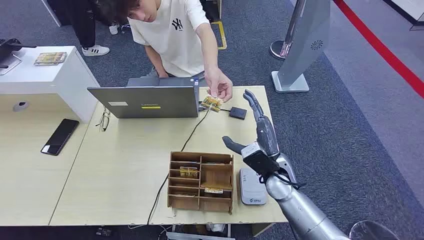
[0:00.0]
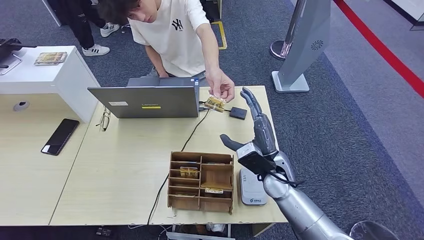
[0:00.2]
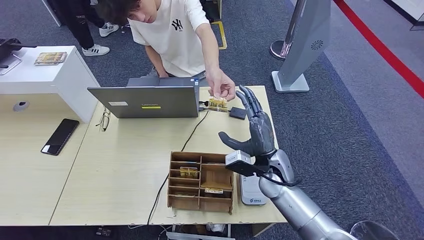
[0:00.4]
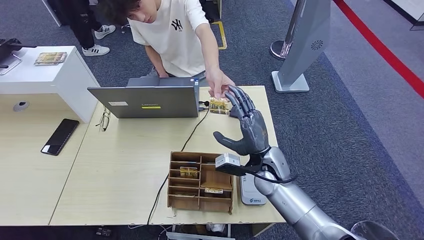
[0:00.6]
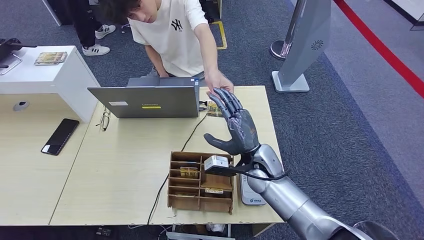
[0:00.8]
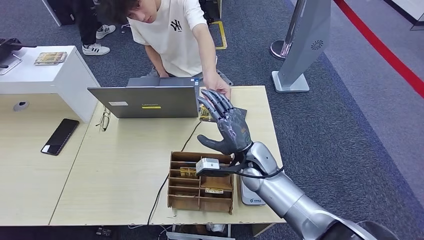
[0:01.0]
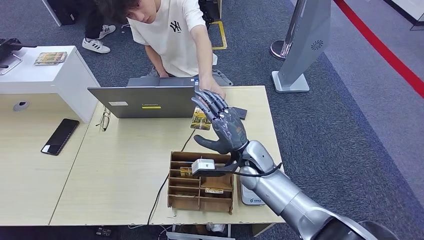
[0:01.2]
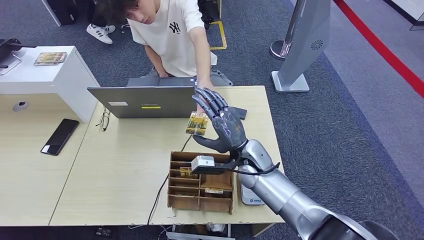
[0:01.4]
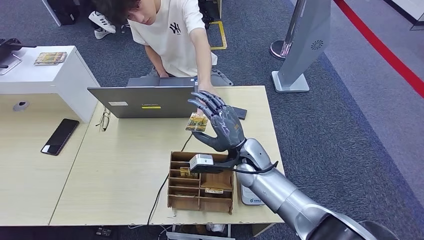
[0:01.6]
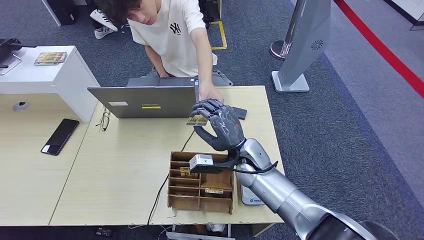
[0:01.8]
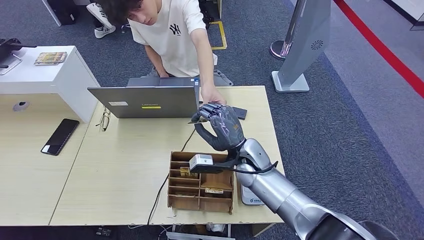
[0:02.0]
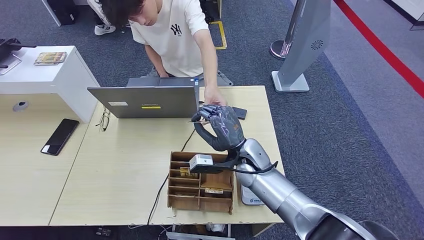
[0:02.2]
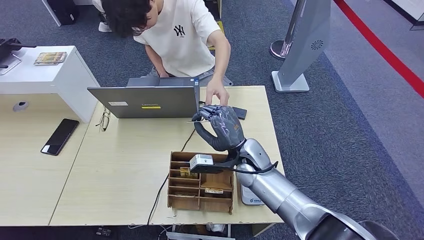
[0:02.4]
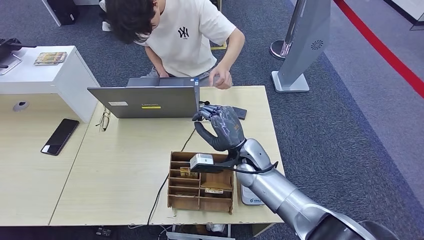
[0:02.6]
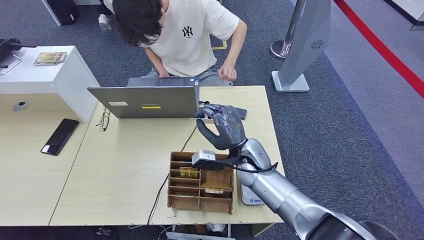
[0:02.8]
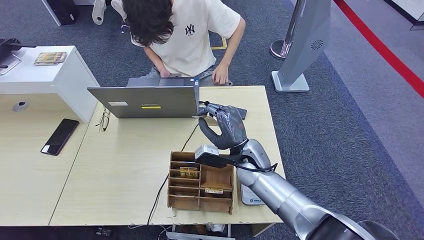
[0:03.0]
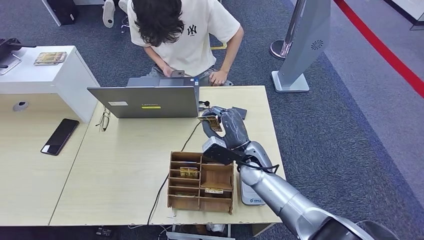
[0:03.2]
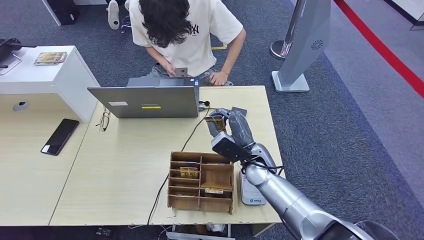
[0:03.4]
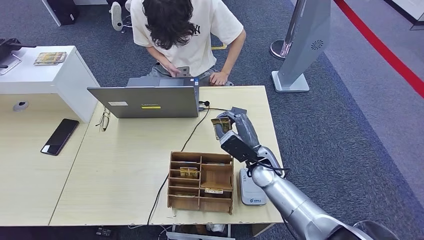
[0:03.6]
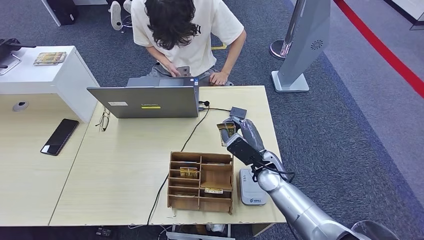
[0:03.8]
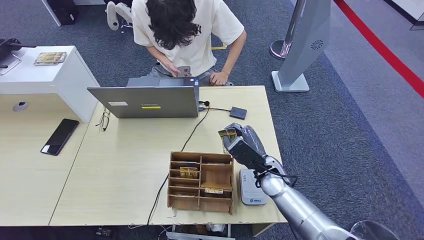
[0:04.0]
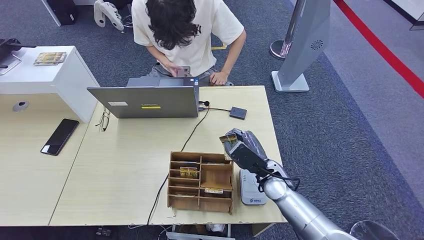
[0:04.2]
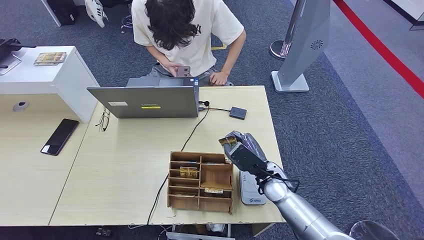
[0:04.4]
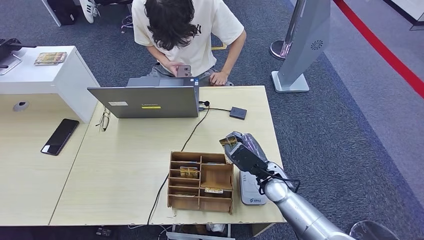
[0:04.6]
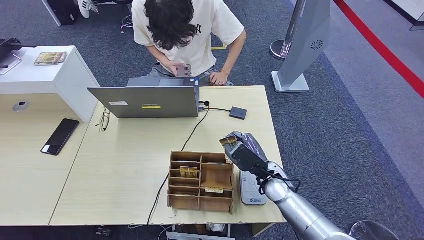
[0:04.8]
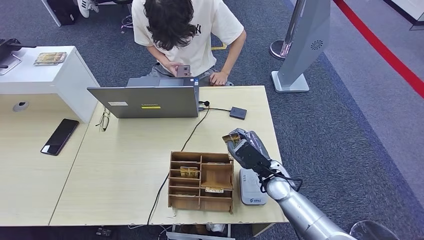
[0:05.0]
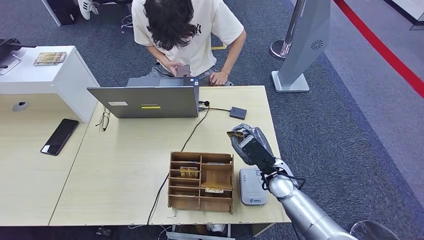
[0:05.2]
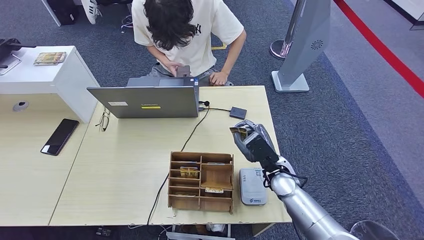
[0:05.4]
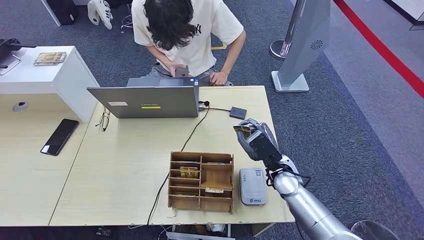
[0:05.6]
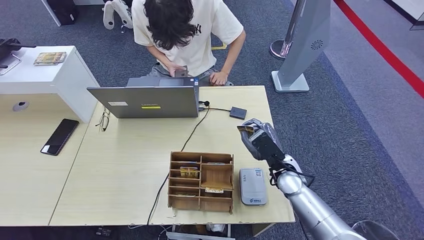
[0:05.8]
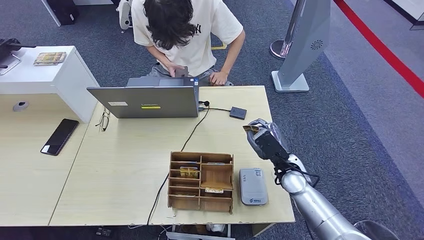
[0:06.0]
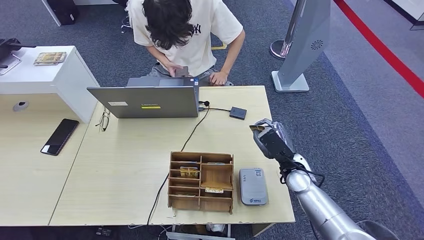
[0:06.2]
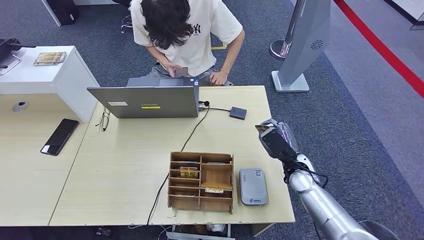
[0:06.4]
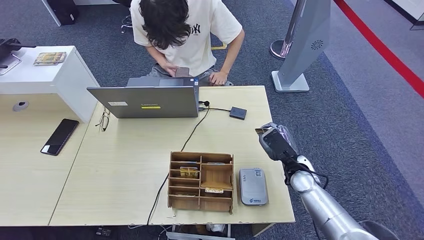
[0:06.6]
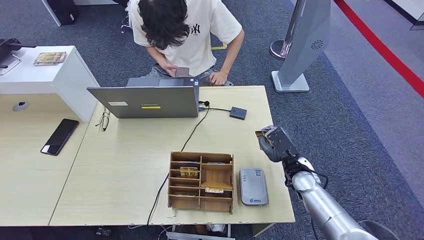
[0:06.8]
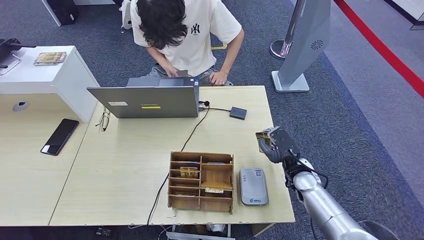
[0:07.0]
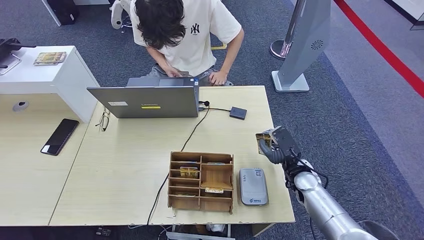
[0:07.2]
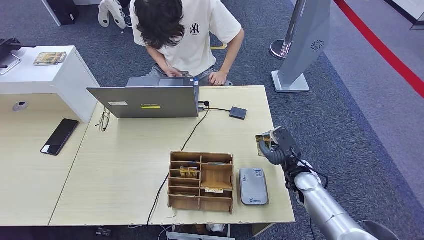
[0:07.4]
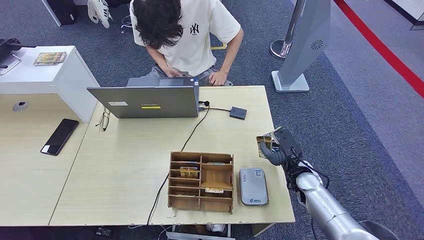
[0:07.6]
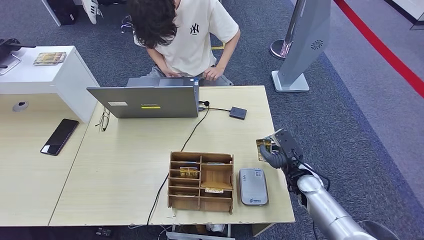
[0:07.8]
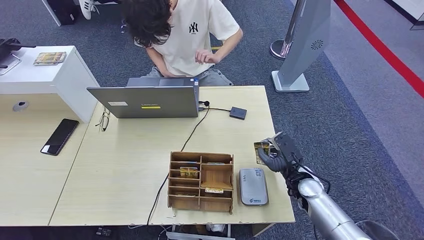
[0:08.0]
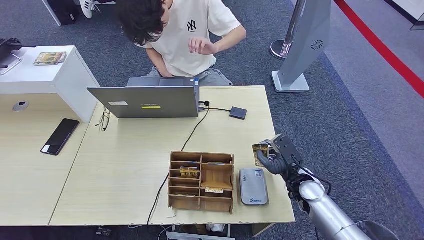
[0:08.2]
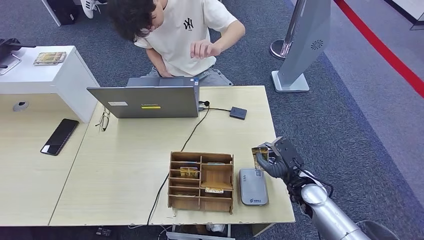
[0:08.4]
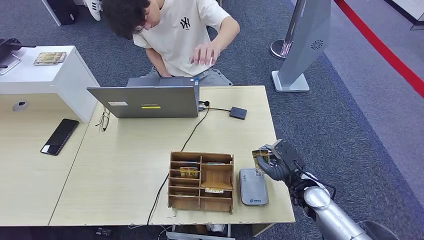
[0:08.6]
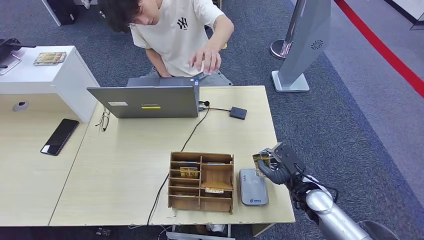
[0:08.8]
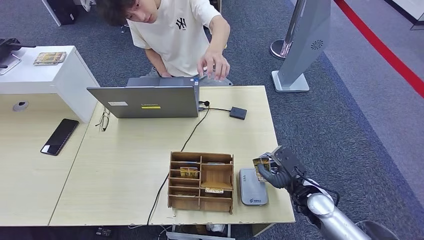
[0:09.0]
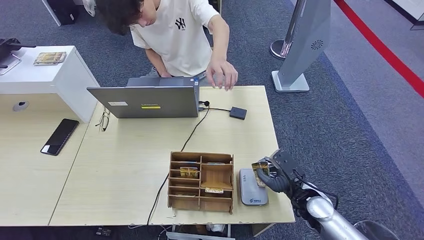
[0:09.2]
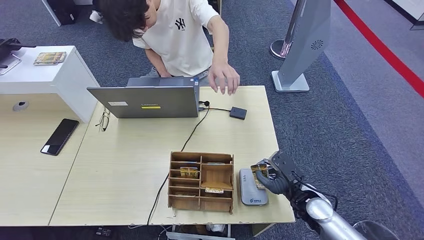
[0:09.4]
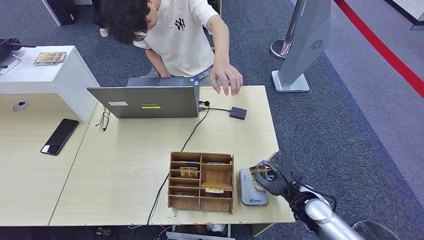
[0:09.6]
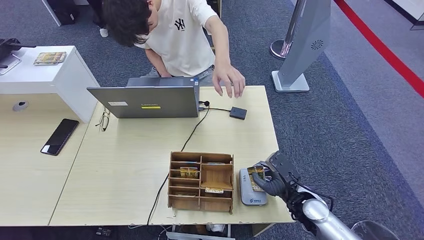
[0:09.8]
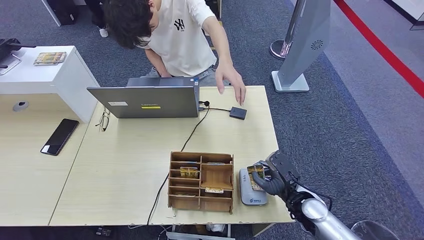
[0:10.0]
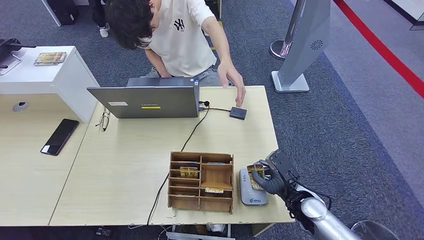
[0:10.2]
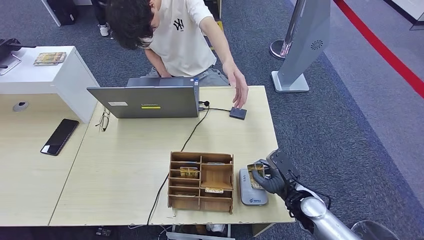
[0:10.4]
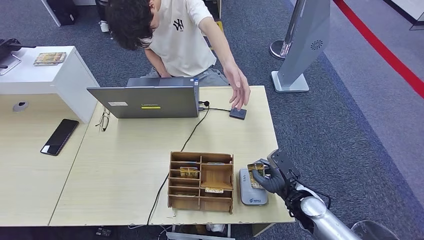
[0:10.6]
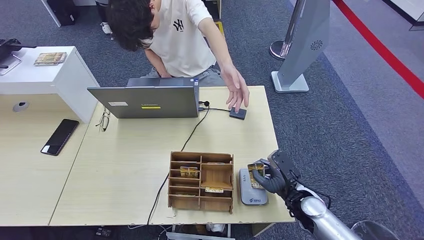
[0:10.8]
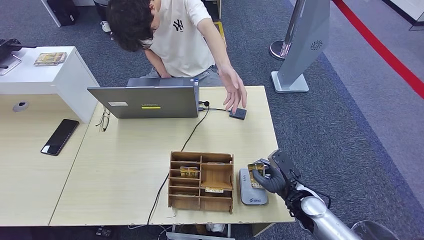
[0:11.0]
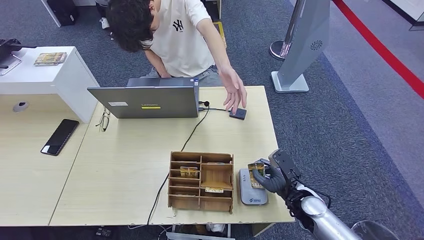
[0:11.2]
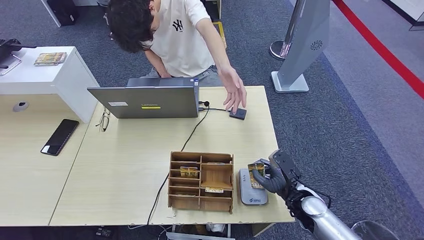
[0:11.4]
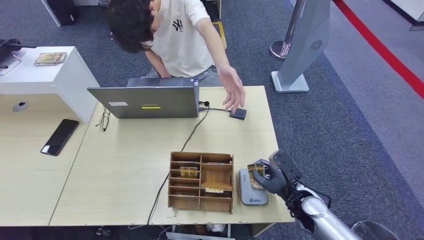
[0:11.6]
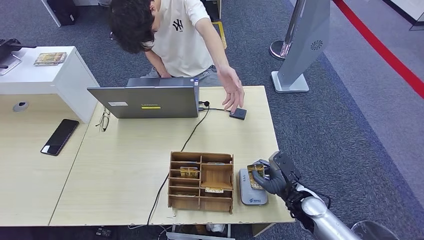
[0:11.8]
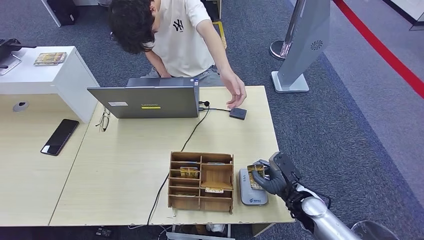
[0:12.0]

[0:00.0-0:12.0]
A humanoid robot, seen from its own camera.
Step, 0:00.0 to 0:02.4: Take the ID card from the person's hand.
0:01.6 to 0:03.0: The hands move only a little.
0:03.0 to 0:04.4: The right hand heads to the right and downward, covering roughly 10 cm.
0:04.4 to 0:06.0: The right hand goes roughly 5 cm to the right.
0:06.0 to 0:07.6: The right hand shifts by approximately 5 cm.
0:07.6 to 0:09.0: The right hand is displaced backward by some 5 cm.
0:09.0 to 0:10.4: The hands stay close to where they were, moving slightly.
0:10.4 to 0:12.0: The two hands keep their place.

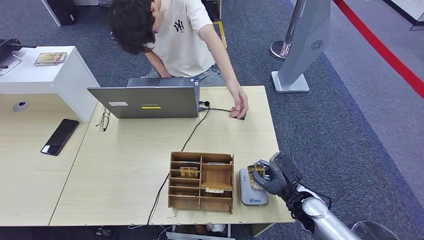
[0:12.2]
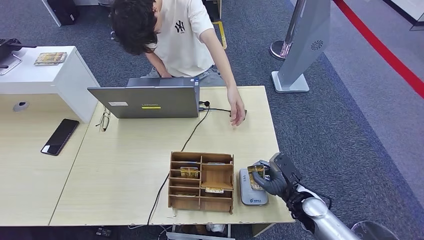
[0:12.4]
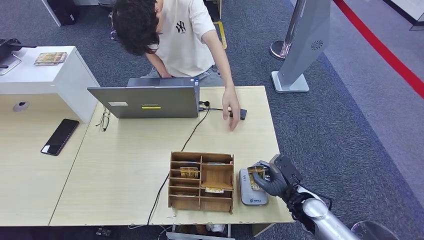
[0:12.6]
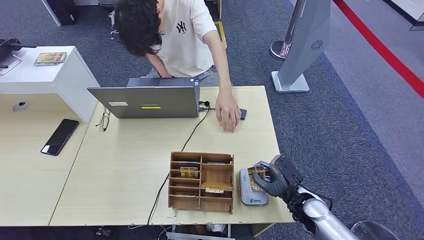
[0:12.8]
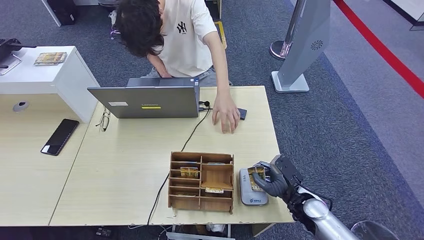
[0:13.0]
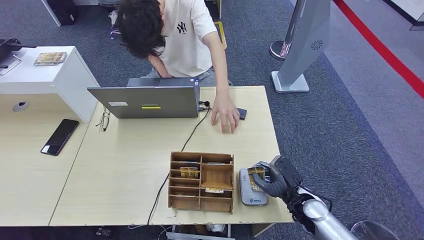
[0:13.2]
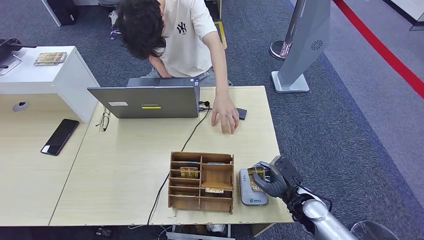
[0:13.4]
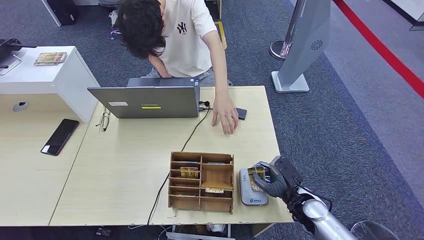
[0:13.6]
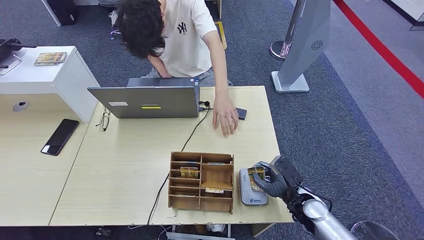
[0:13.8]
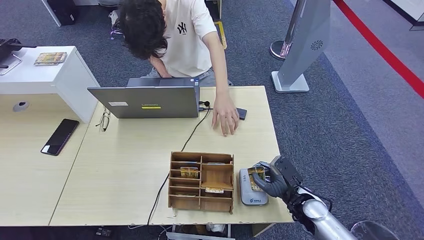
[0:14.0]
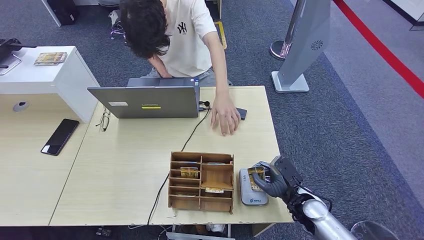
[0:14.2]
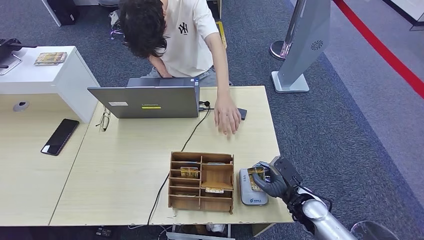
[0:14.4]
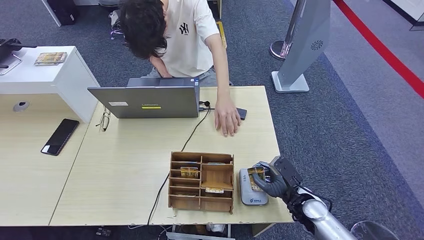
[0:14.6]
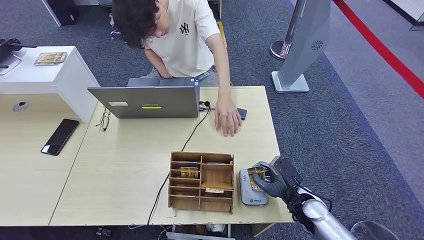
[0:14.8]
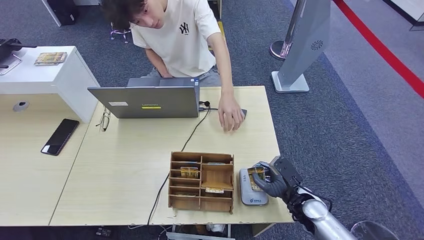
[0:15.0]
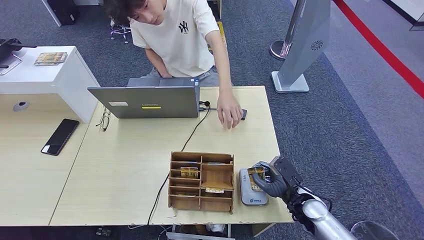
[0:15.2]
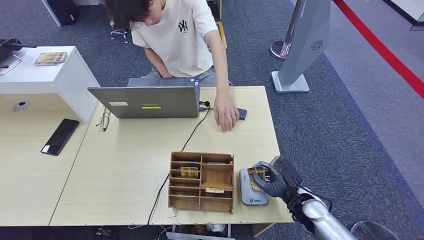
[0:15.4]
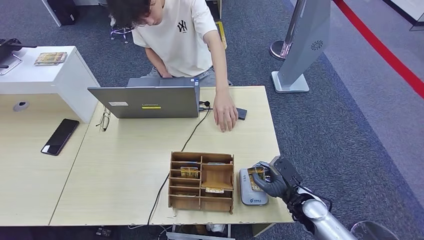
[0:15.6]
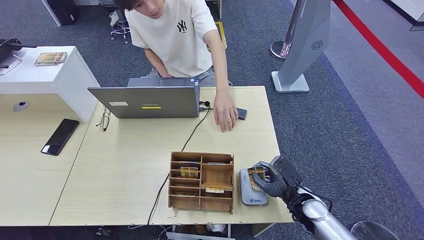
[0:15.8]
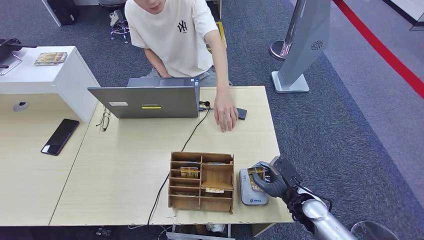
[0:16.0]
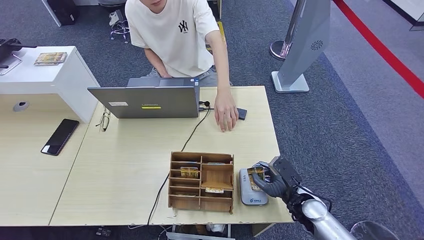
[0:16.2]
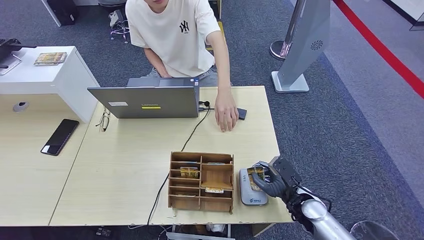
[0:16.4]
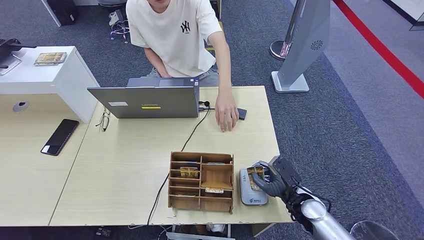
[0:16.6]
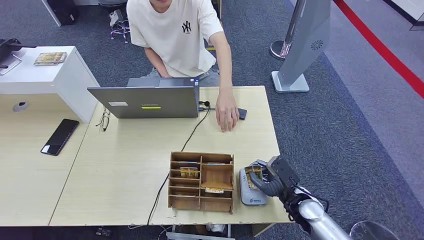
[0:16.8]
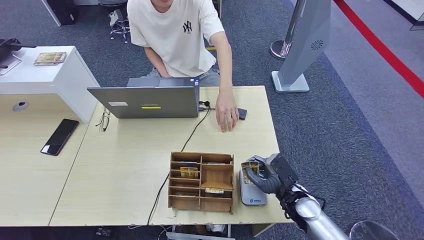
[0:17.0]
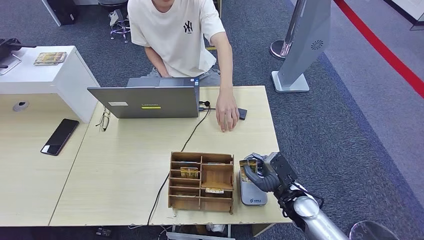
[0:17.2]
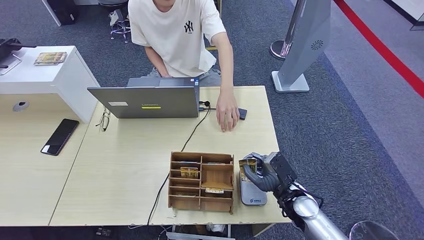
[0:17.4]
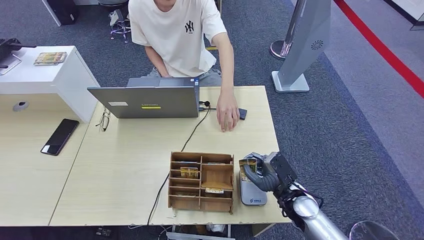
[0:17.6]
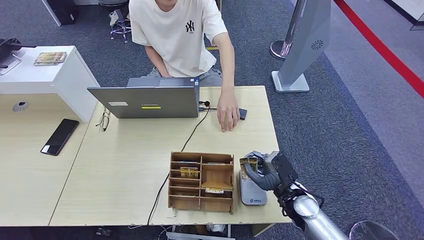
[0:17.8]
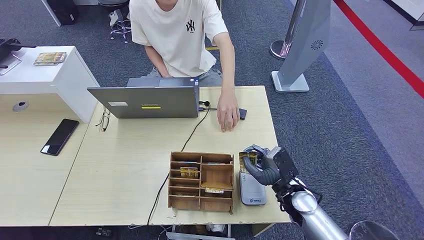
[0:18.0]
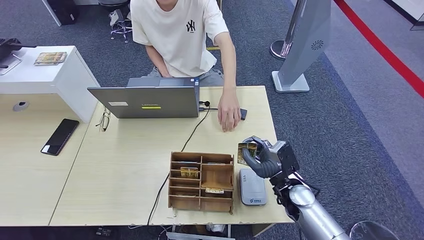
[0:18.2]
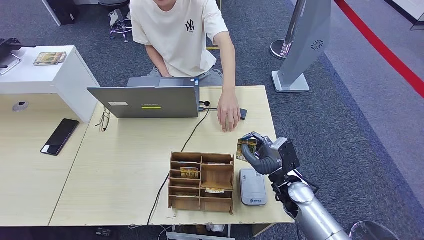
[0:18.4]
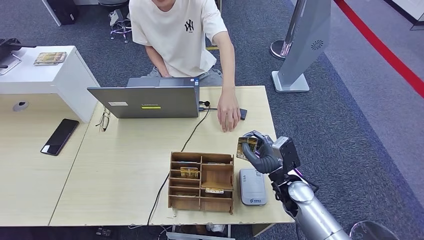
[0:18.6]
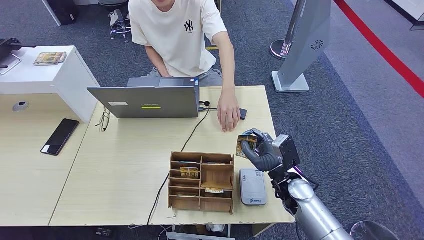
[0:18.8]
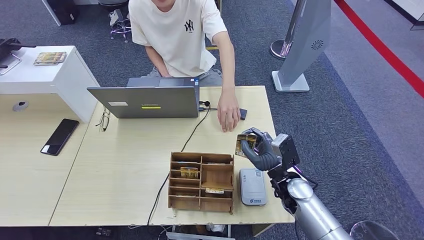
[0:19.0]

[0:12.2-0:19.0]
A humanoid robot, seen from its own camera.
Step, 0:12.2 to 0:19.0: Place the ID card on the card reader.
0:12.2 to 0:16.2: The two hands keep their place.
0:16.2 to 0:17.6: The hands stay close to where they were, moving slightly.
0:17.6 to 0:19.0: The right hand ends up about 5 cm from where it was.
